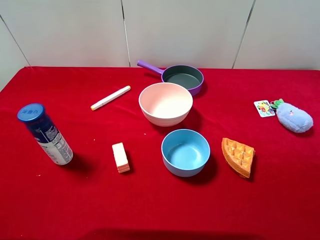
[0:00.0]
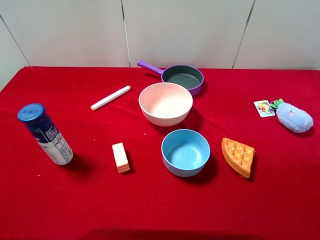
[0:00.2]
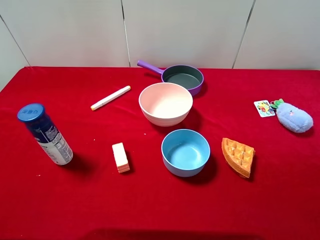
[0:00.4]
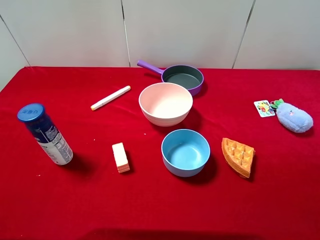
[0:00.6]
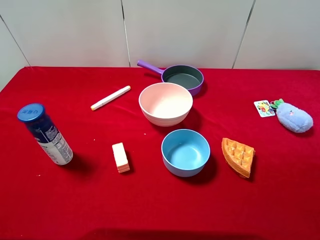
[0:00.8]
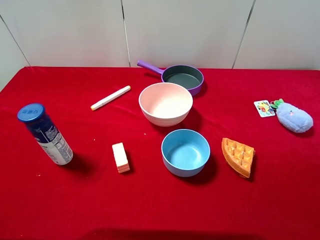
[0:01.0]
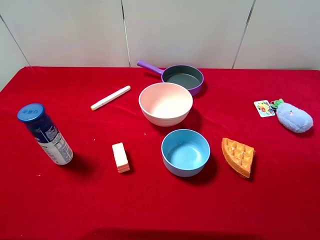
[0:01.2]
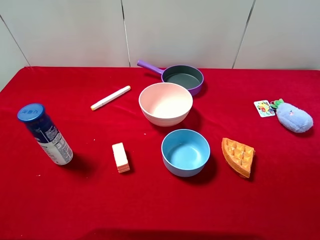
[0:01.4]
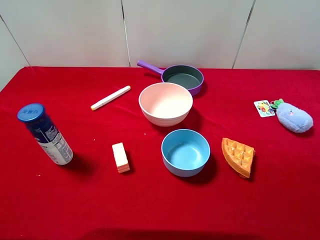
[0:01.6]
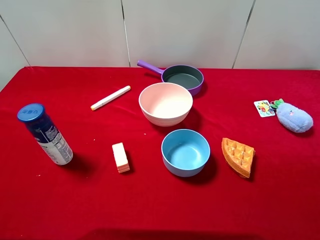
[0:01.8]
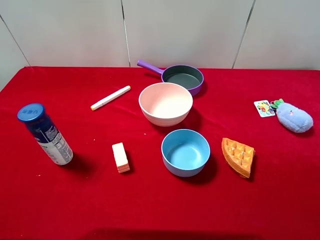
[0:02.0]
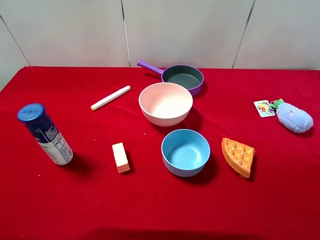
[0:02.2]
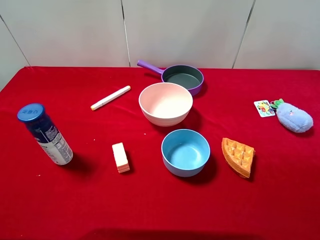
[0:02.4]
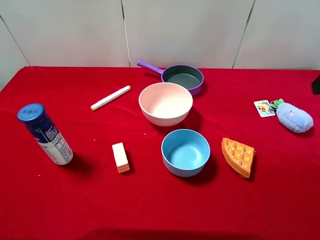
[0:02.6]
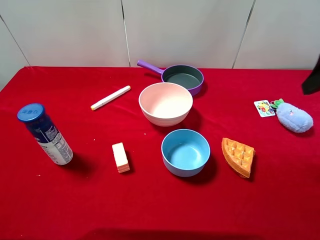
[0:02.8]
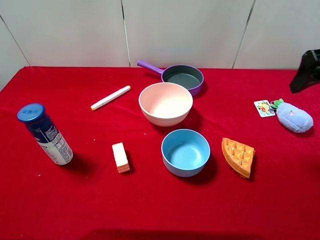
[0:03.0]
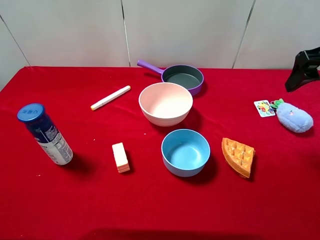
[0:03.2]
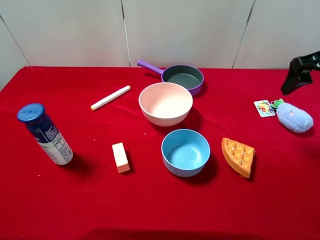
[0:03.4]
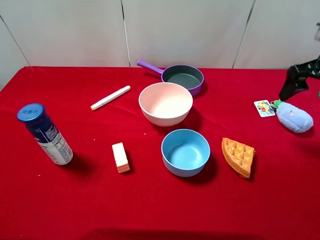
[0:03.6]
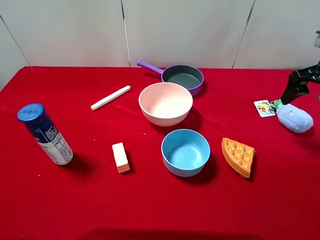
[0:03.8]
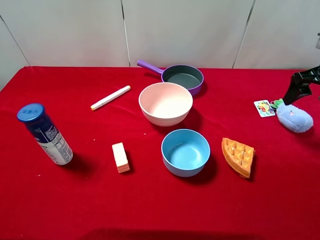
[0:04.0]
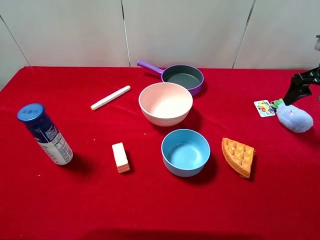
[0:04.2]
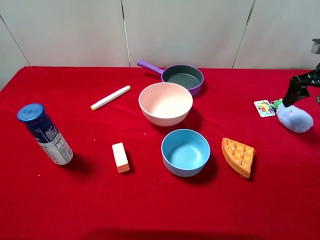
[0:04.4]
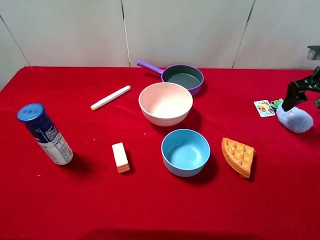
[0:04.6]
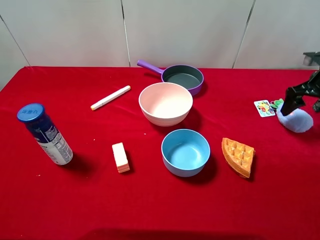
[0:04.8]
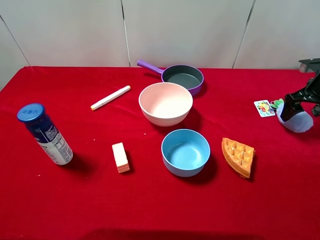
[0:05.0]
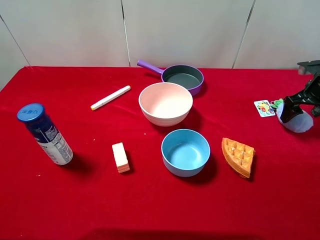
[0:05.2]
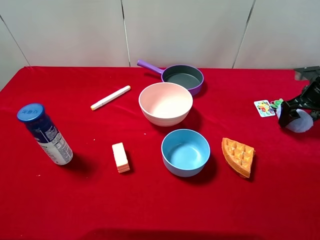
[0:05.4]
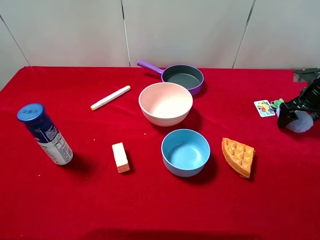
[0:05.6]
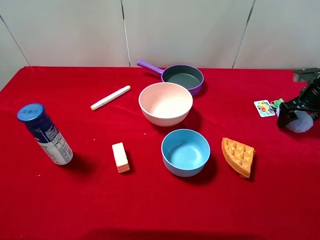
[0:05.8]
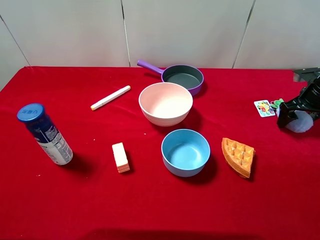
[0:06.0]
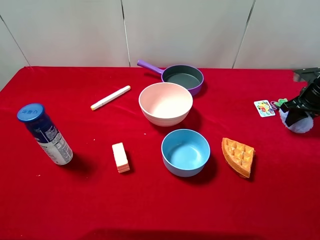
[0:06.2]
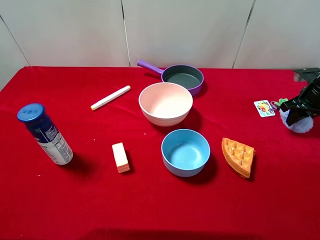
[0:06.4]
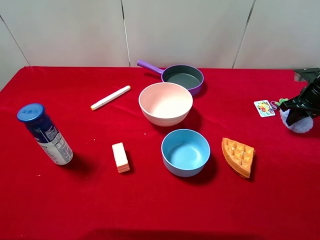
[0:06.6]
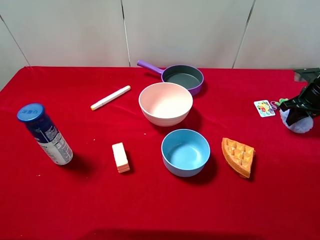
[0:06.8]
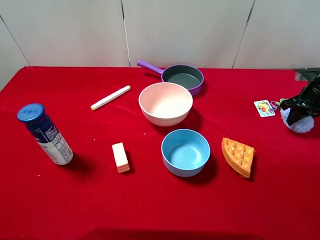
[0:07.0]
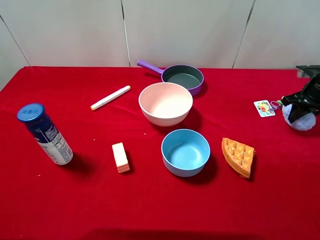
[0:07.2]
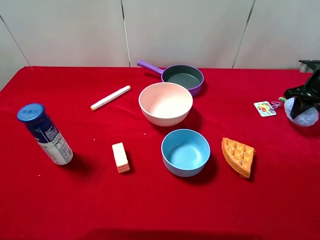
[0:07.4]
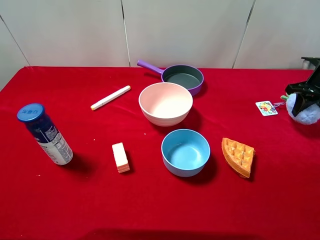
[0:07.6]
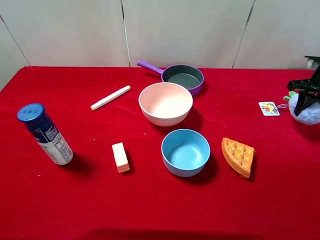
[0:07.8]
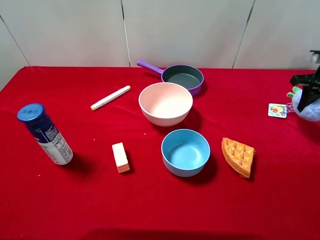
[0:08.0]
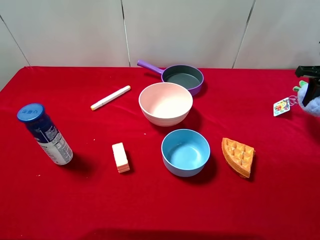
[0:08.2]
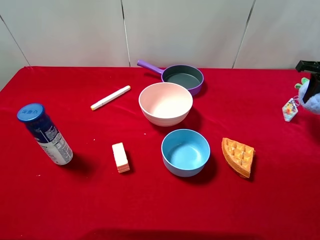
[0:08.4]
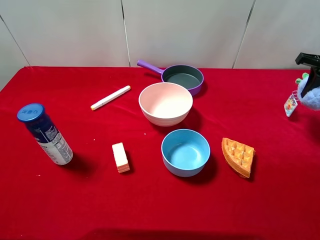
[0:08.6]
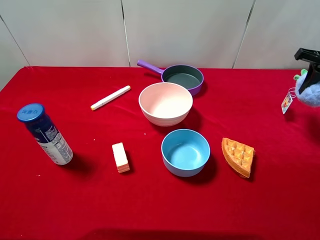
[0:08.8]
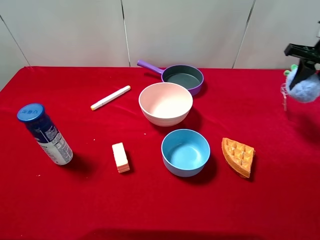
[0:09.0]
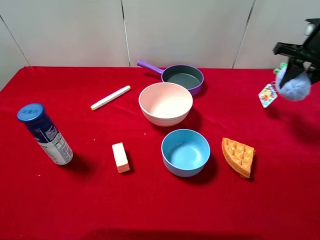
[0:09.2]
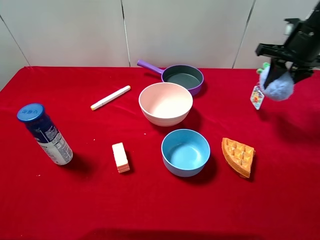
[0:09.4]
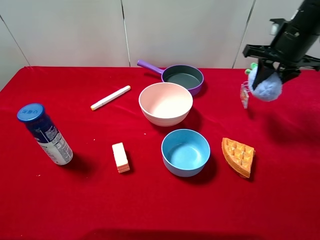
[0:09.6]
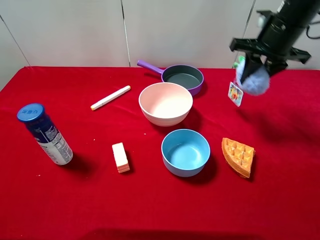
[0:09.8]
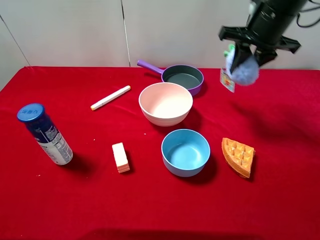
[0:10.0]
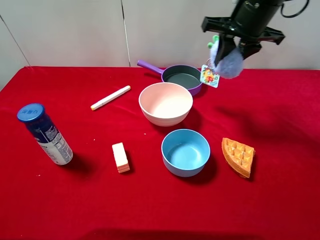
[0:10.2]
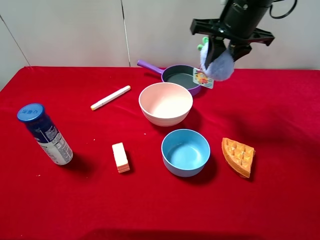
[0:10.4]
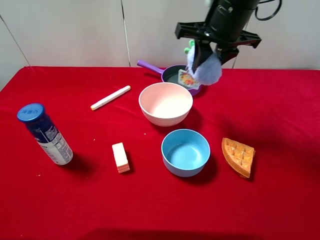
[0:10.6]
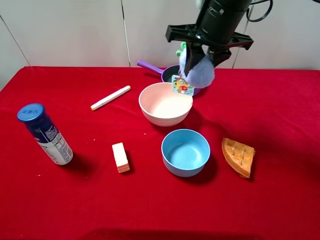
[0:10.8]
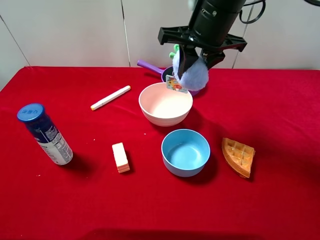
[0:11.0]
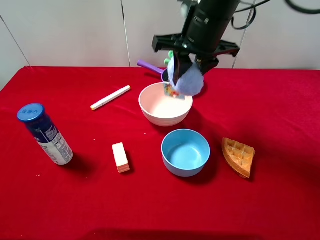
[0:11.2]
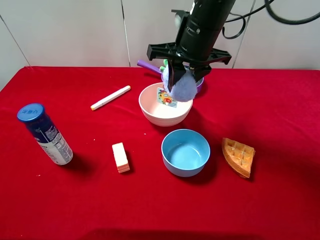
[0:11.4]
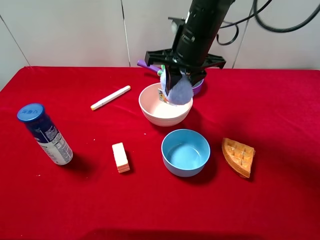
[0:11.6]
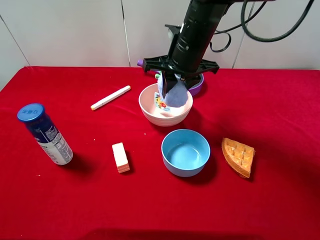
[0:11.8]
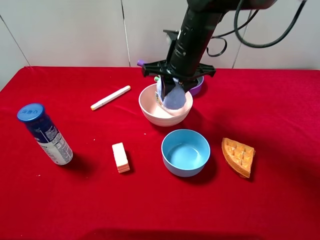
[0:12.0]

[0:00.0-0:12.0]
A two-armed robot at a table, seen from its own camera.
Task of the whole recording: pick up an item with a gripper and place it in a random container on the desktop.
0:01.6 to 0:03.0: The right gripper is displaced forward by about 20 cm.
0:03.0 to 0:04.4: The right gripper travels downward, forward and to the right by roughly 15 cm.
0:04.4 to 0:06.0: The right gripper goes approximately 10 cm downward.
0:06.0 to 0:07.6: The right gripper closes.
0:07.6 to 0:09.0: The right gripper goes roughly 10 cm upward and to the left.
0:09.0 to 0:10.4: The right gripper goes roughly 20 cm to the left.
0:10.4 to 0:12.0: The right gripper goes roughly 10 cm to the left and downward.

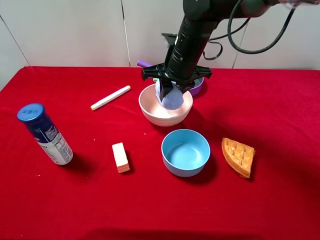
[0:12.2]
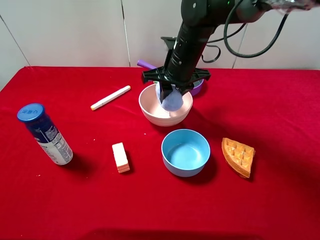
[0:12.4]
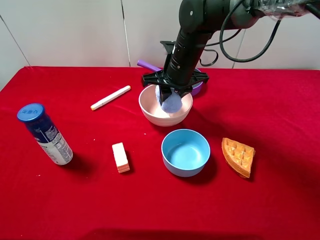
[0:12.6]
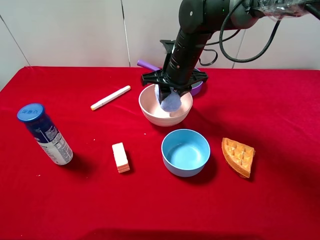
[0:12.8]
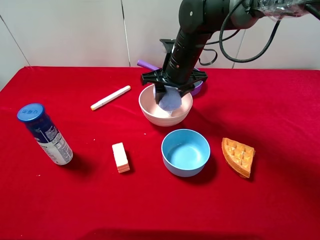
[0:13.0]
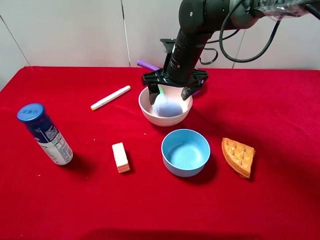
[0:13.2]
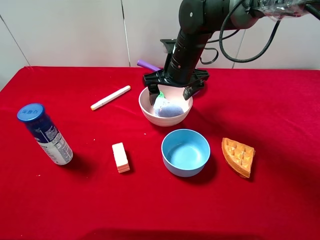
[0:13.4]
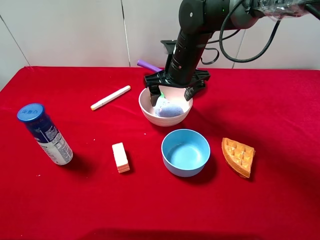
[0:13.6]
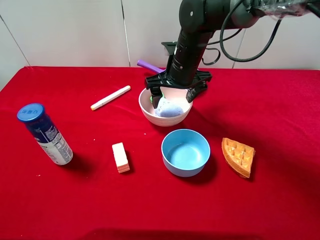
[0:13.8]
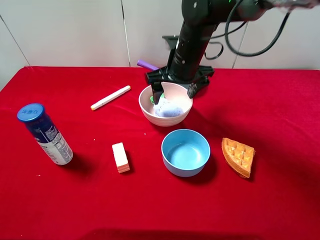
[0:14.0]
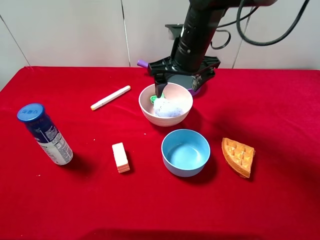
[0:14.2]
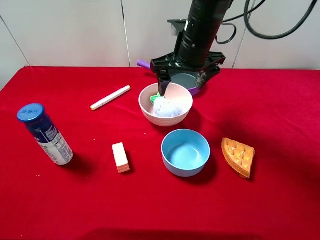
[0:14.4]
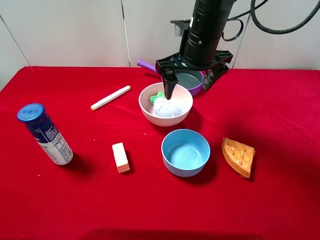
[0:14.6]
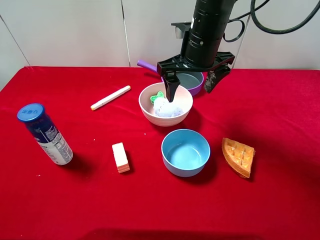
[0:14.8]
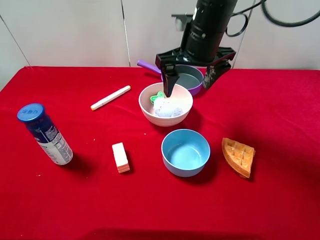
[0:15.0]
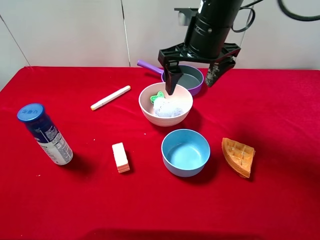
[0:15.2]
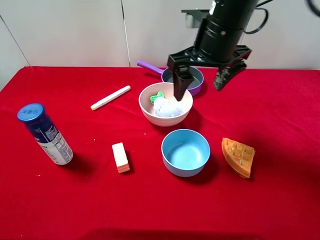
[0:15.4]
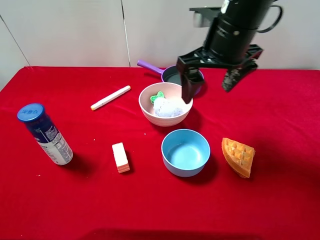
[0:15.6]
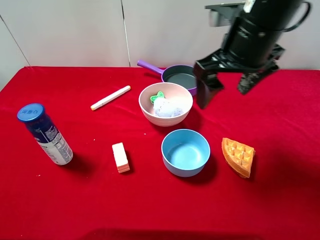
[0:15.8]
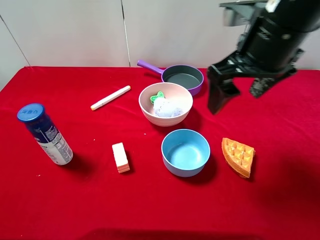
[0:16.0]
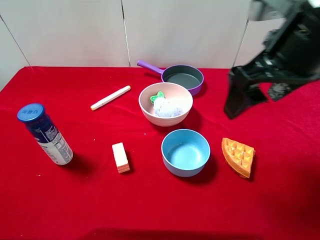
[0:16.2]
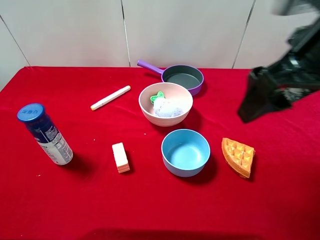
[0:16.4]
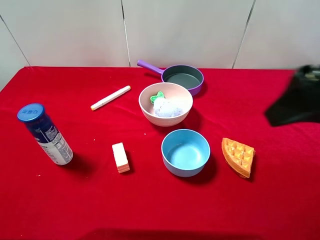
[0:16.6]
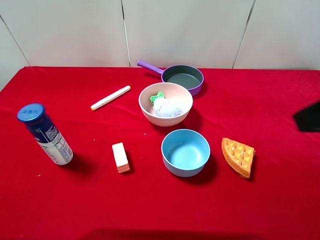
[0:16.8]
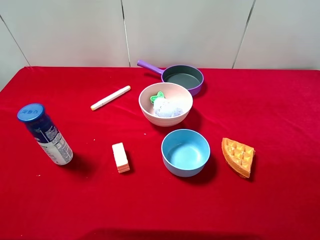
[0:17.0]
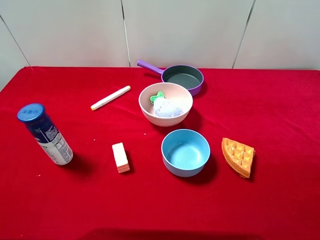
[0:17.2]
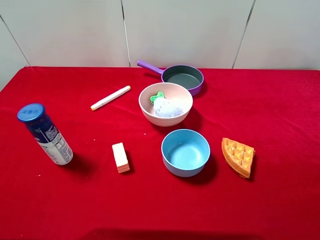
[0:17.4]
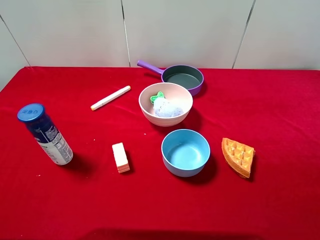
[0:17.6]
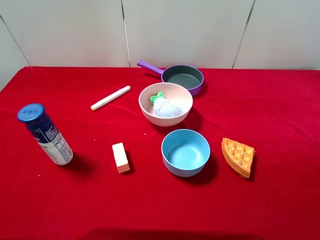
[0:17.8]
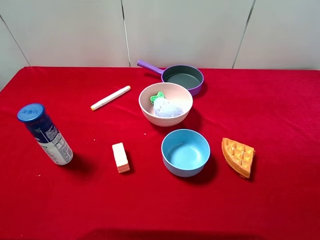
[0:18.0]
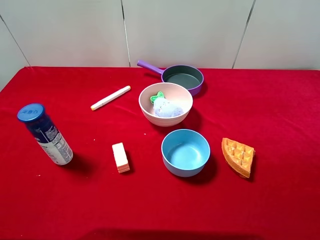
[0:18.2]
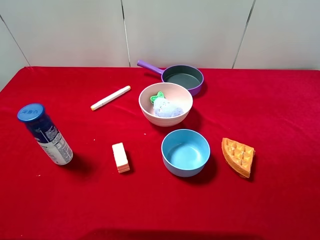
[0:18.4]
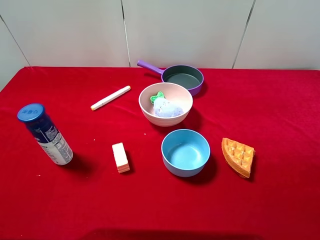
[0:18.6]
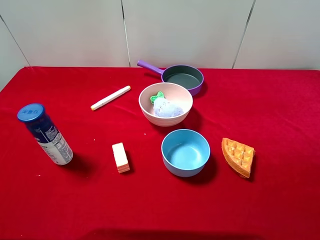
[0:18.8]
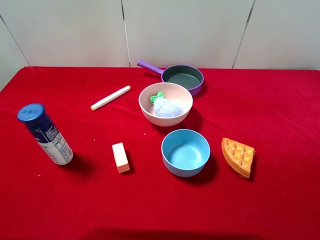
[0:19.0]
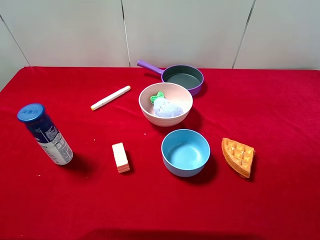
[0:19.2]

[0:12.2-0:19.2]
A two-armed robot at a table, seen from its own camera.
Task of the whole recording: pick up an item with a gripper and place it in a random container on the desktop.
0:12.2 to 0:13.6: The right gripper opens up.
0:13.6 to 0:15.0: The right gripper moves upward, about 10 cm.
0:15.0 to 0:16.4: The right gripper moves backward, to the right and upward, roughly 20 cm.
0:16.4 to 0:17.8: The right gripper travels backward and to the right by about 20 cm.
0:17.8 to 0:19.2: The two grippers keep their place.

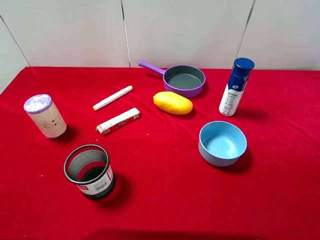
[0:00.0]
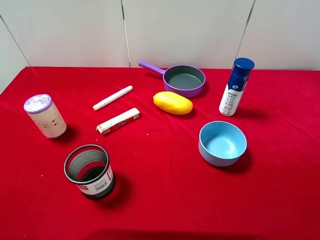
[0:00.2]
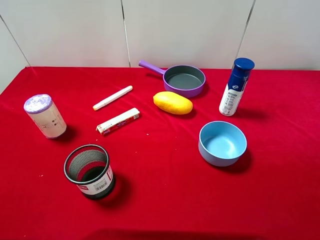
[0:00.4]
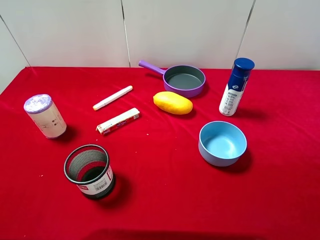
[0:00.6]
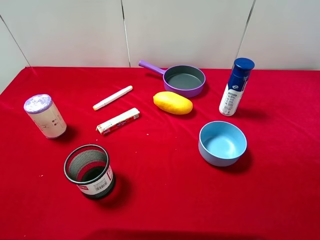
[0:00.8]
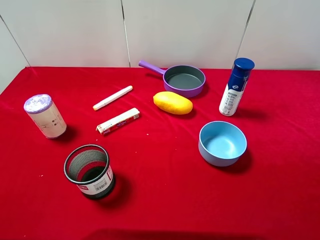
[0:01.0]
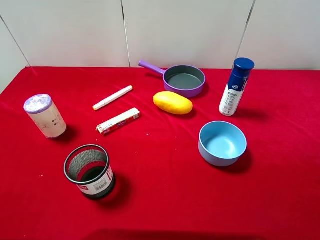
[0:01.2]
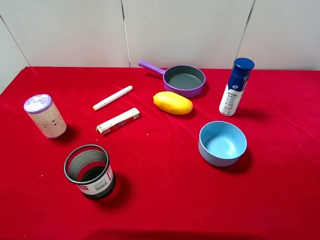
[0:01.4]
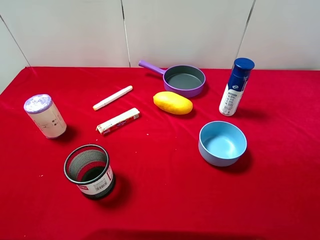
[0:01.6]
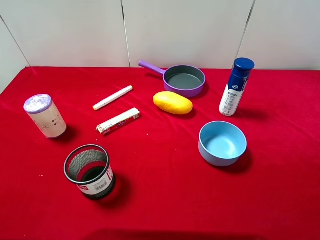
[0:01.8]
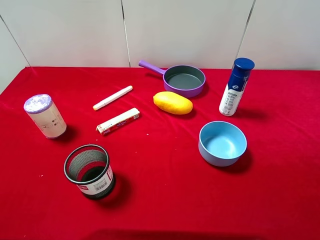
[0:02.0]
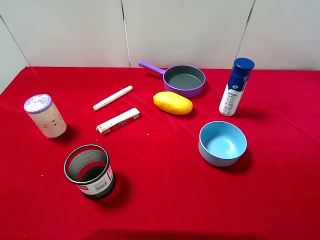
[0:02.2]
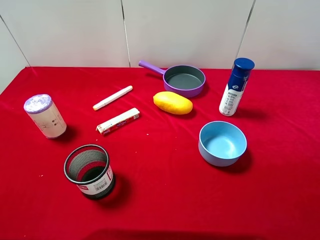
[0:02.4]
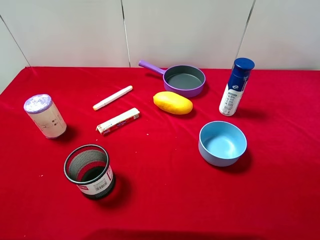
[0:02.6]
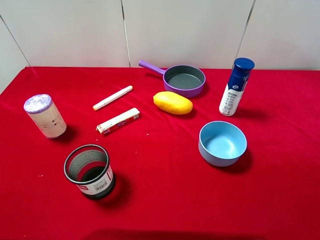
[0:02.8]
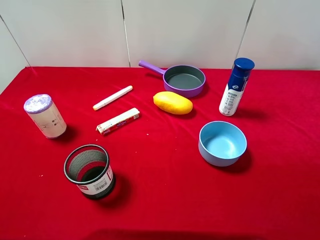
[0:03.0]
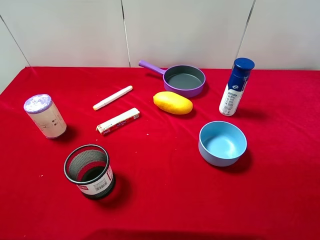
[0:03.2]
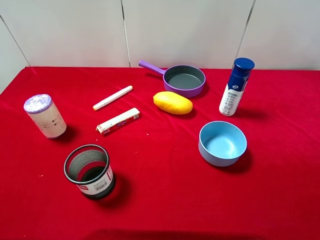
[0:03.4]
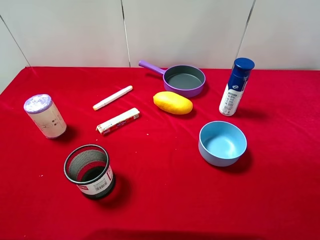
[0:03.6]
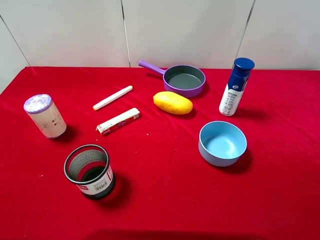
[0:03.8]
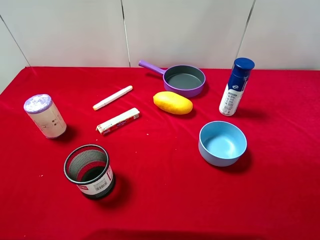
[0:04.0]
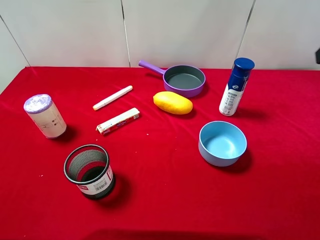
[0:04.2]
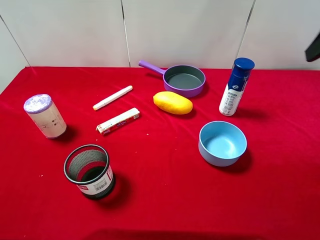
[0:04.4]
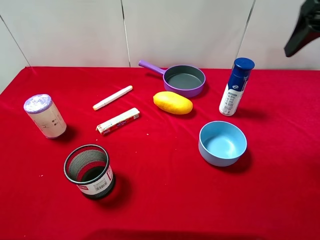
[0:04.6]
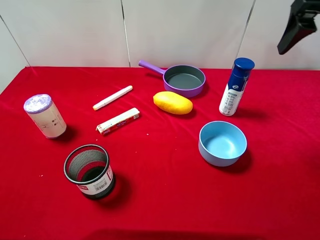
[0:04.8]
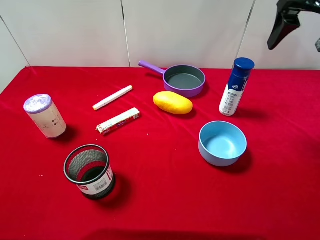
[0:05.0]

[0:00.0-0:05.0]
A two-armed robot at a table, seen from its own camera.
Task of the whole recording: pick up an item with a gripper and place it in a random container on the desktop.
0:00.0 to 0:01.6: Neither gripper changes place.
0:03.4 to 0:05.0: The right gripper goes some 20 cm forward.
